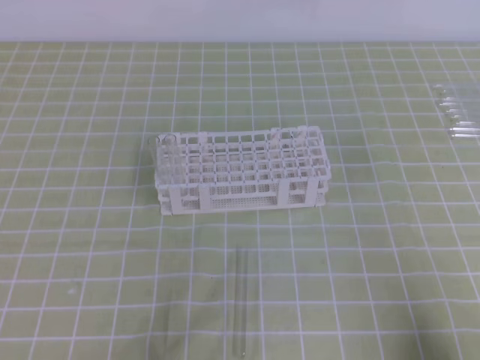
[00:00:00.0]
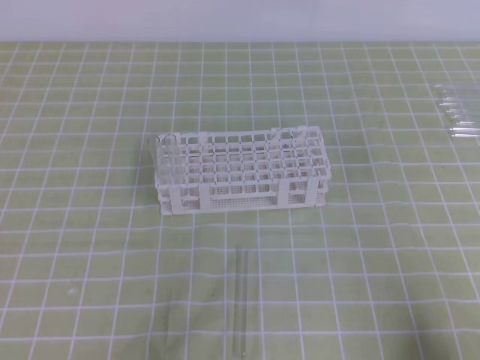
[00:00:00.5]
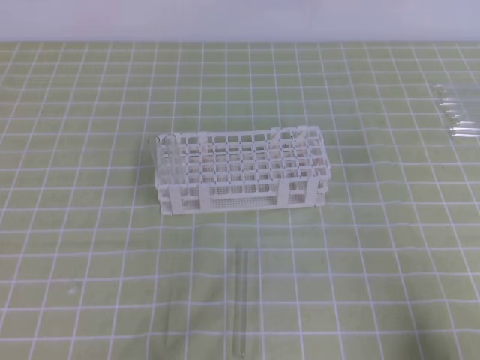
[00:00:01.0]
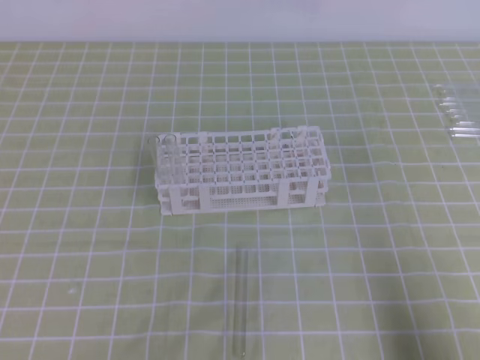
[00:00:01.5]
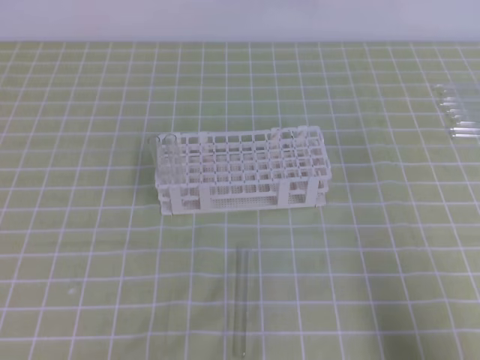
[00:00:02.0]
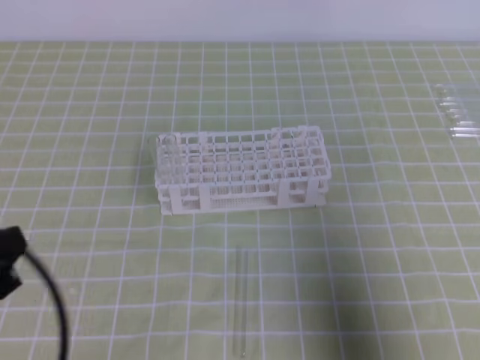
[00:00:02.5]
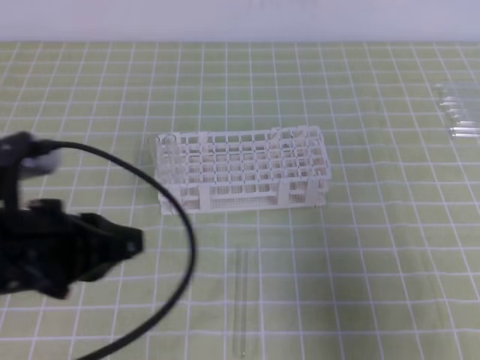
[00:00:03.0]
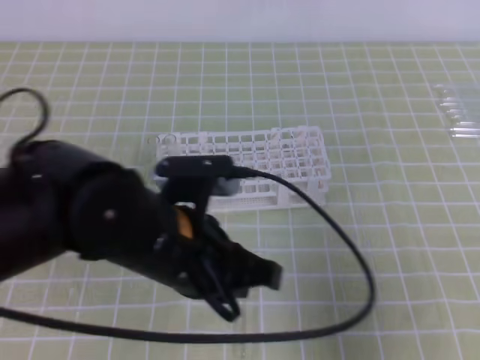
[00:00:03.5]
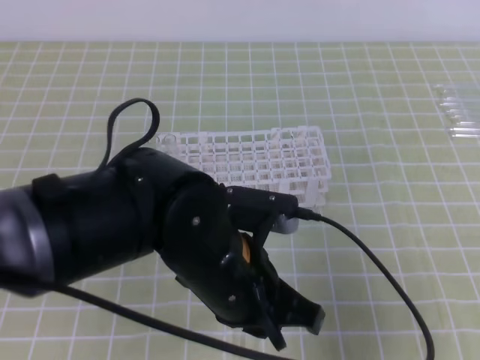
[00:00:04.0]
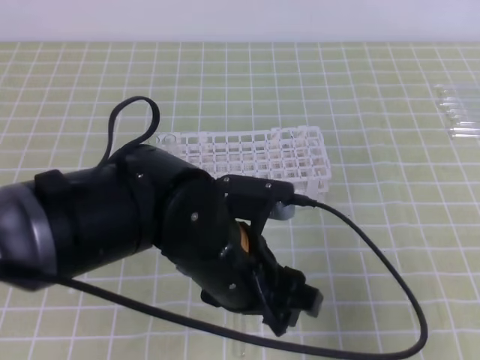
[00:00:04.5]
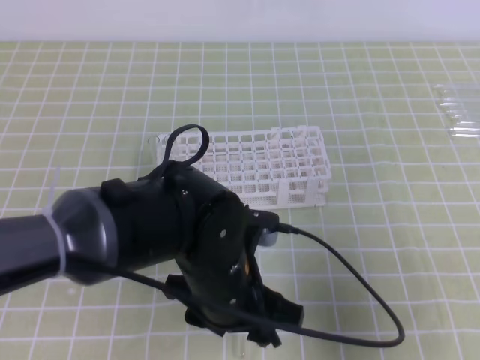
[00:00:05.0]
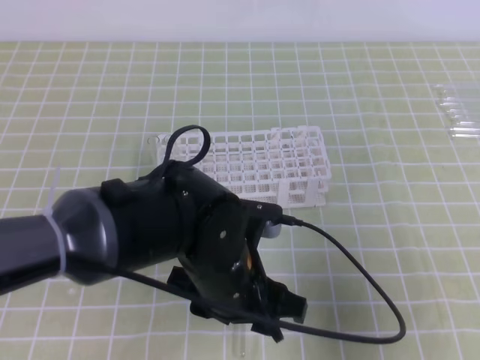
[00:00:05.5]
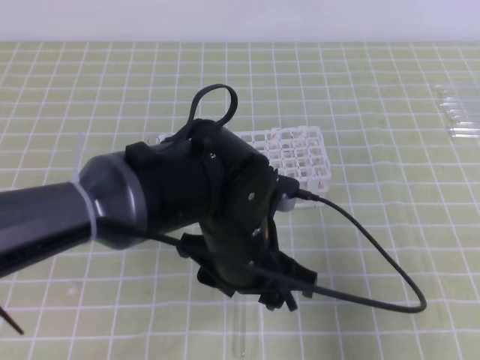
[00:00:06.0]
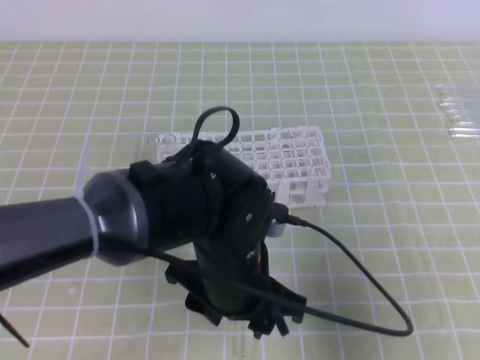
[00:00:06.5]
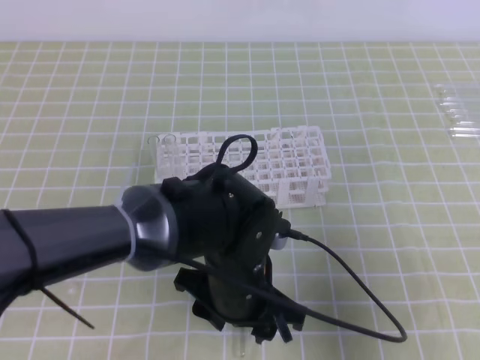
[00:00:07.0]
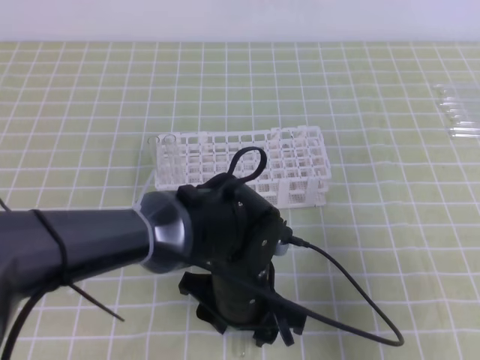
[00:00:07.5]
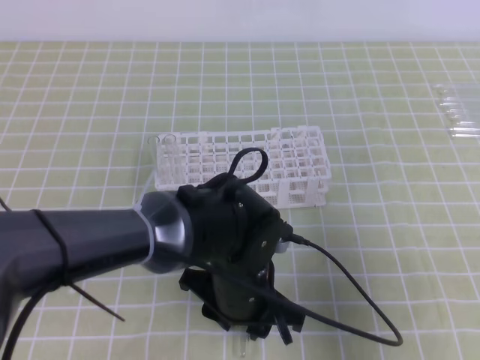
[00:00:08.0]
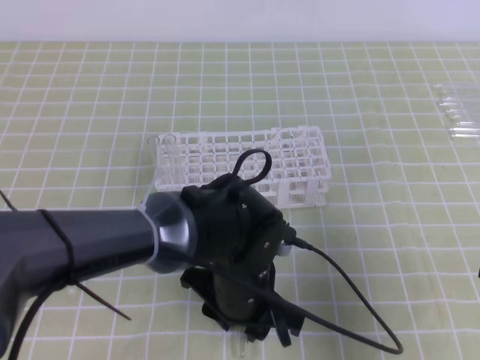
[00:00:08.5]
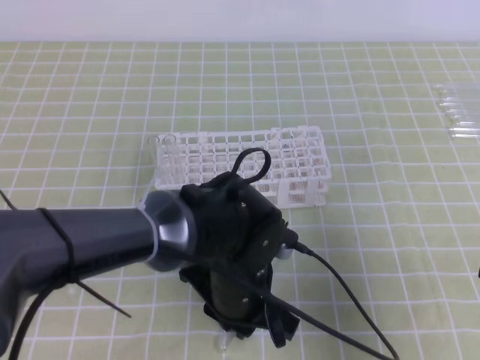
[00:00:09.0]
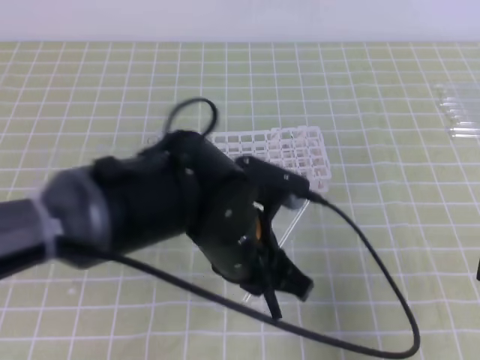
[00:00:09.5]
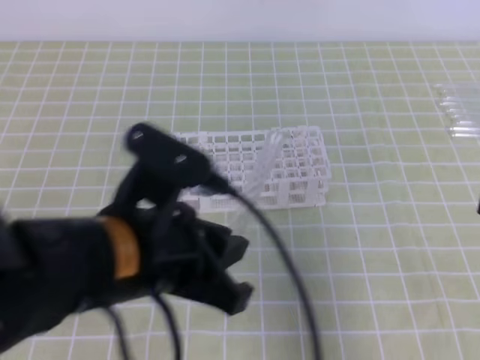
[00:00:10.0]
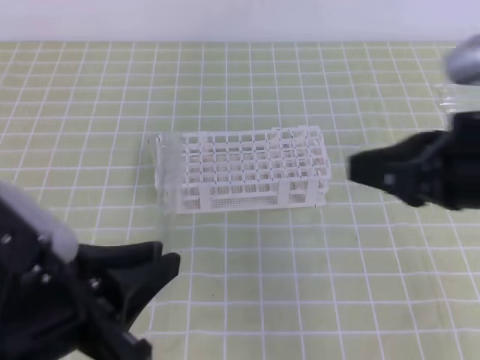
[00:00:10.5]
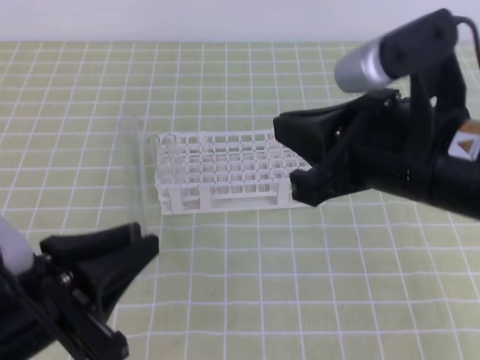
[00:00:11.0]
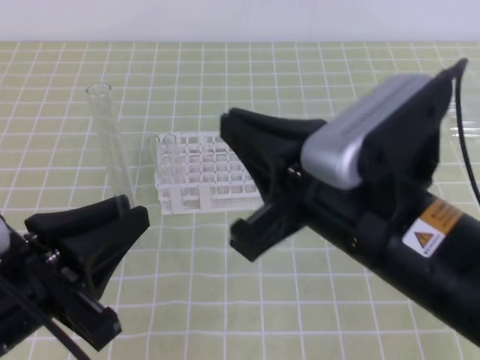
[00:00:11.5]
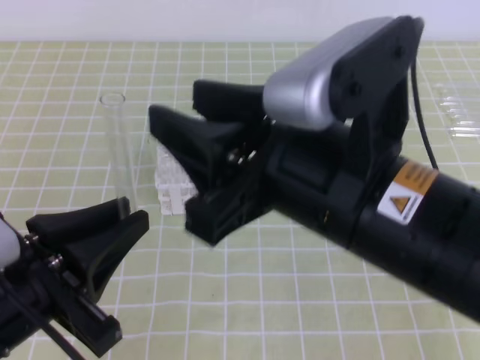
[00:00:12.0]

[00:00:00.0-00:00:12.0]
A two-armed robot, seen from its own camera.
00:00:02.0 to 00:00:04.0: The left gripper heads to the right and forward, covering about 25 cm. The right gripper goes approximately 5 cm forward.
00:00:04.0 to 00:00:06.0: The left gripper opens up.
00:00:06.0 to 00:00:08.0: The left gripper is displaced downward by approximately 5 cm.
00:00:08.0 to 00:00:10.0: The right gripper heads upward, covering roughly 5 cm. Meanwhile the left gripper heads upward, to the left and backward, covering about 20 cm, and closes.
00:00:10.0 to 00:00:12.0: The right gripper goes some 20 cm to the left, and opens. Meanwhile the left gripper travels to the left by some 10 cm.

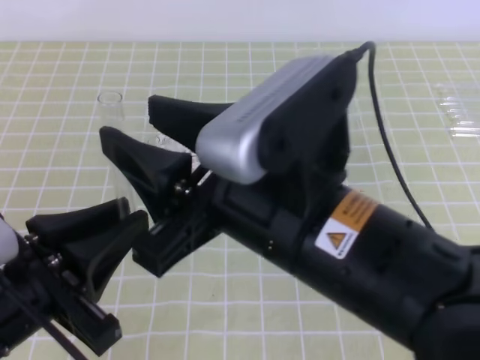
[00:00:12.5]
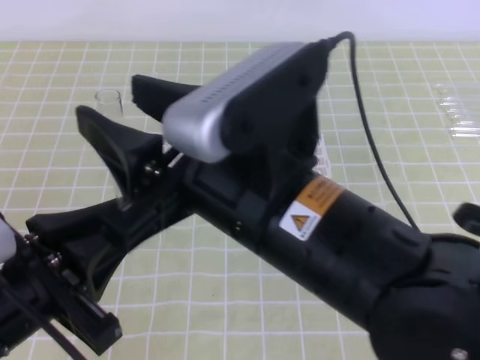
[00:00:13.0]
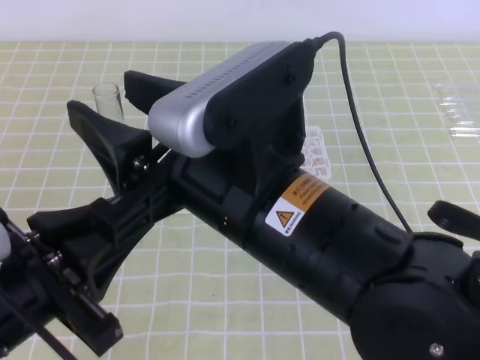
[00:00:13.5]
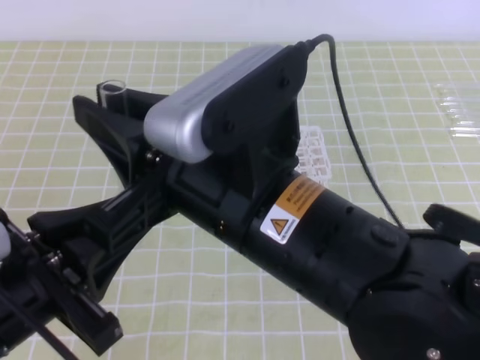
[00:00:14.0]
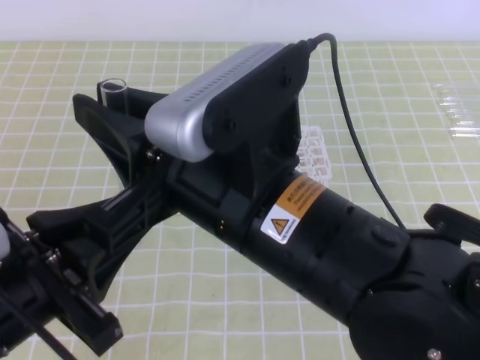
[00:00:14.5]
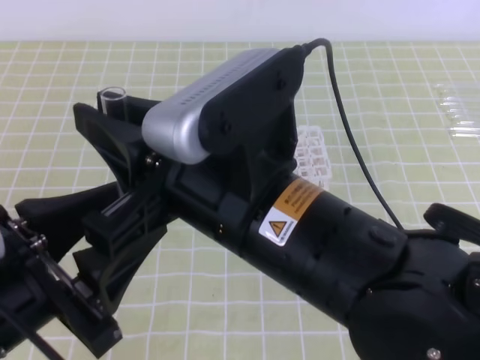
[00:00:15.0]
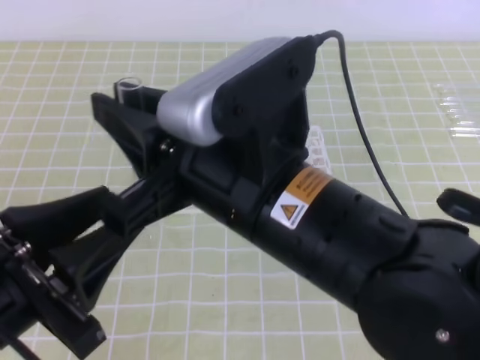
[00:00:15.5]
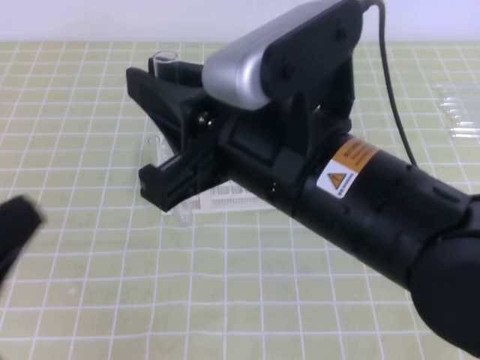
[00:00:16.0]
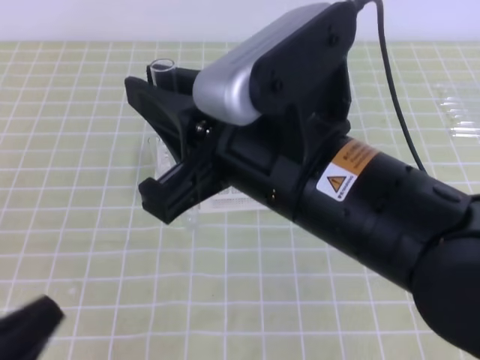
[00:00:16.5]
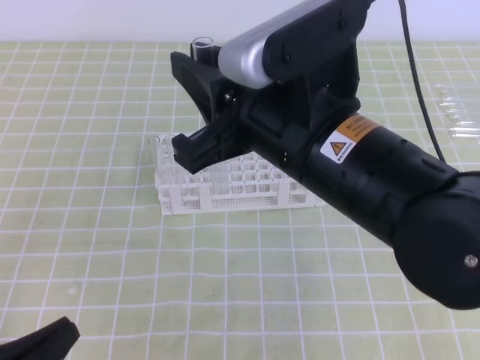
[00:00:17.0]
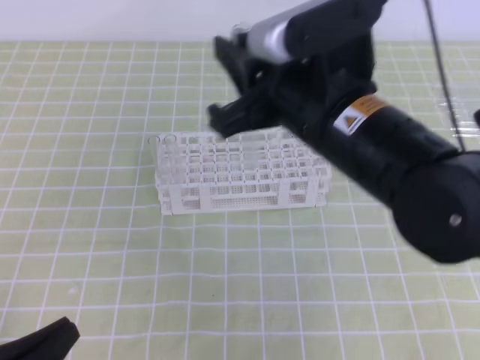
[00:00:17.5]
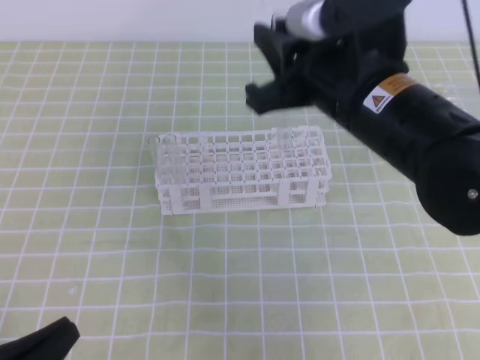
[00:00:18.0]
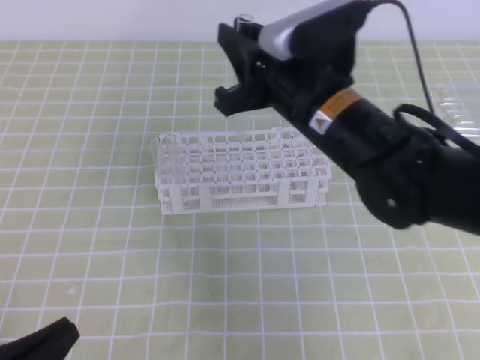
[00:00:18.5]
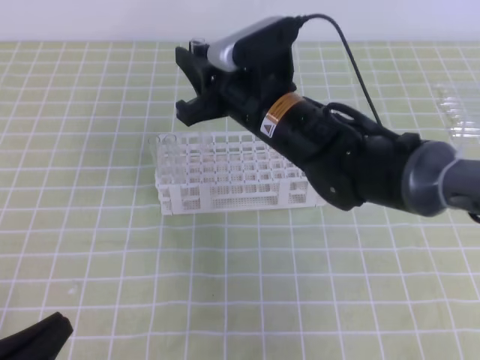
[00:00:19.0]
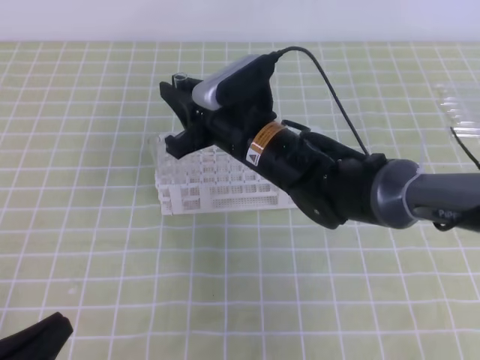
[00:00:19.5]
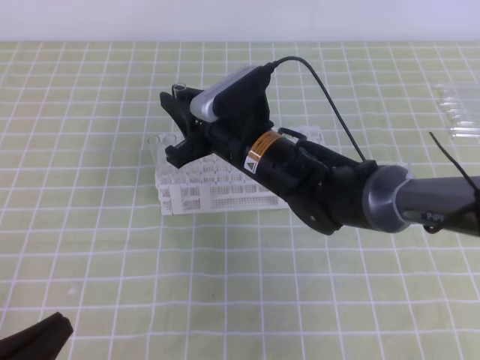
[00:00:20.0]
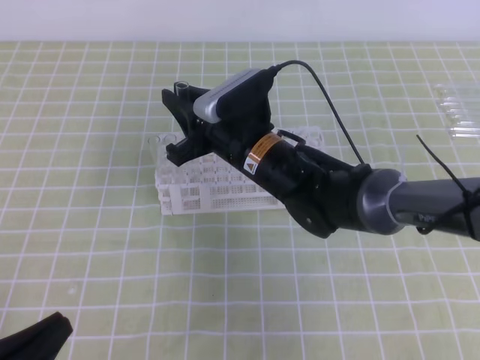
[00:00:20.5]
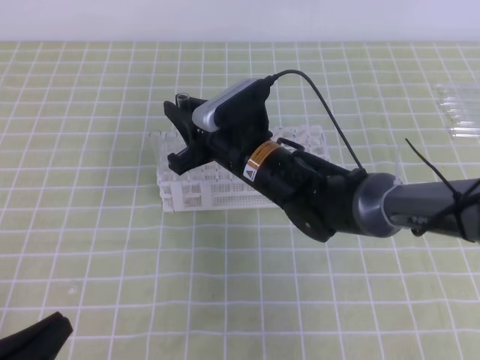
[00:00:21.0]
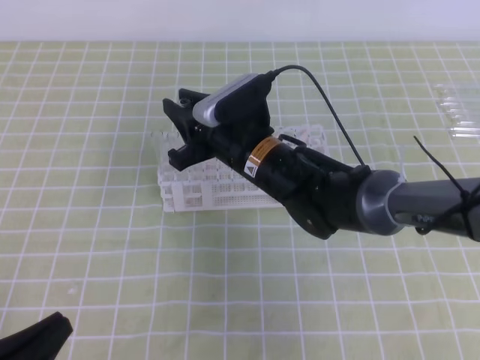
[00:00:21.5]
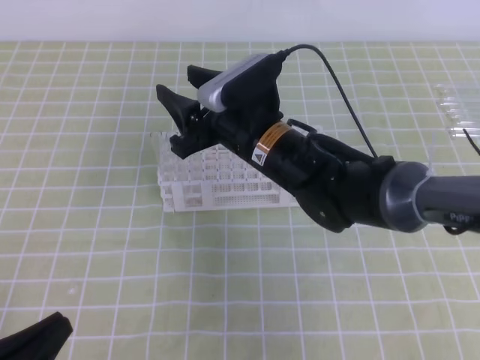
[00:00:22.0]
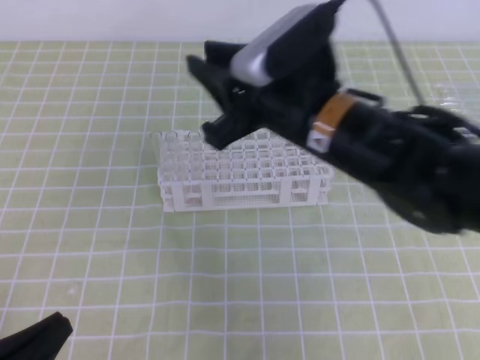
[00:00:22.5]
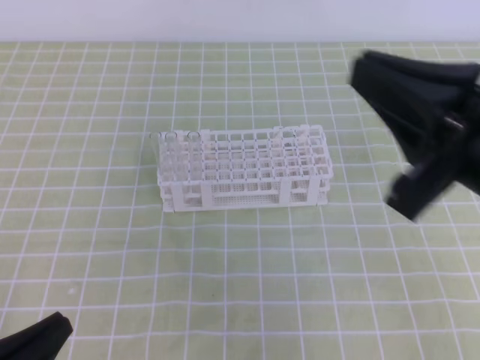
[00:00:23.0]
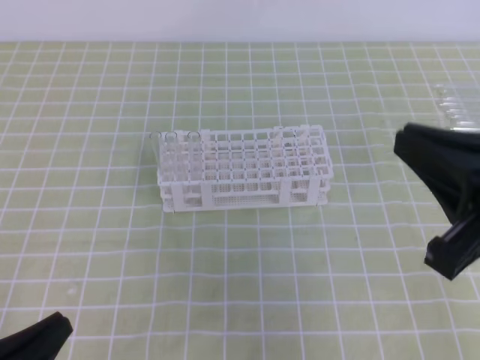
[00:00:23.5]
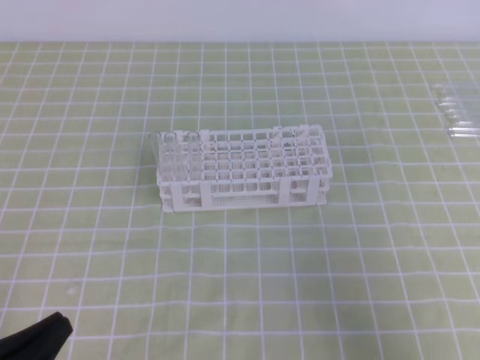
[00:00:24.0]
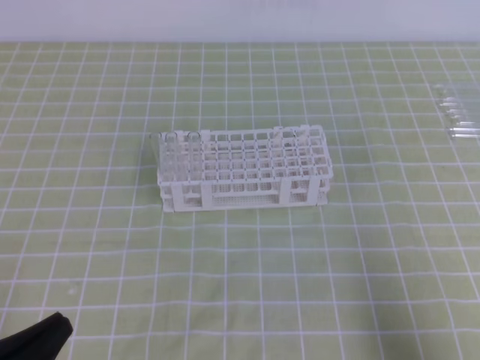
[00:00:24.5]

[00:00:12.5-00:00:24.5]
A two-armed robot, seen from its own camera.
00:00:12.5 to 00:00:14.5: The right gripper closes.
00:00:14.5 to 00:00:16.5: The left gripper moves to the left, backward and downward, some 10 cm, and closes up.
00:00:16.5 to 00:00:18.5: The right gripper goes roughly 15 cm forward and downward.
00:00:18.5 to 00:00:20.5: The right gripper travels downward and to the left by roughly 10 cm.
00:00:20.5 to 00:00:22.5: The right gripper shifts approximately 15 cm upward, backward and to the right, and opens, then closes once more.
00:00:22.5 to 00:00:24.5: The right gripper travels to the right and backward by roughly 35 cm, and closes up.

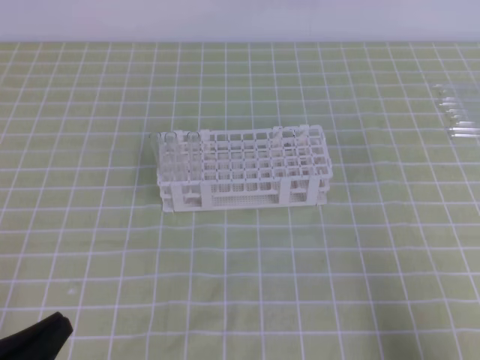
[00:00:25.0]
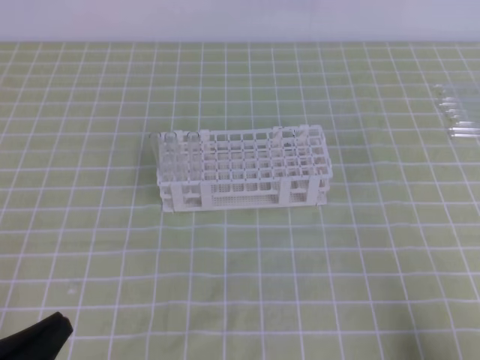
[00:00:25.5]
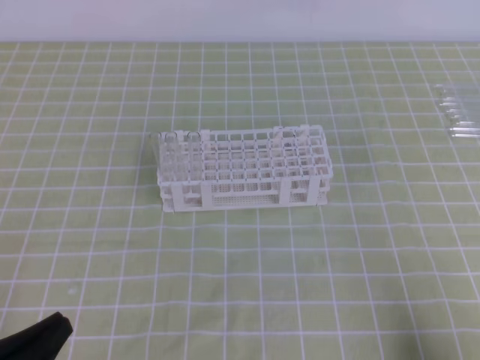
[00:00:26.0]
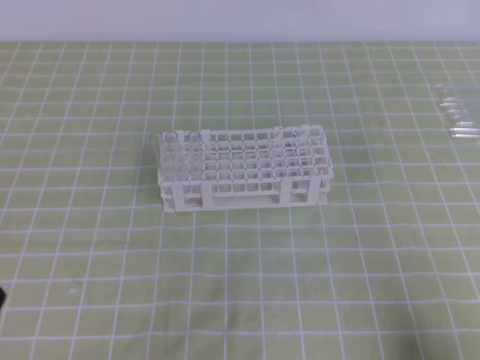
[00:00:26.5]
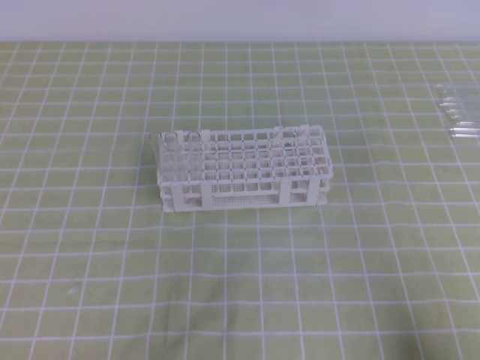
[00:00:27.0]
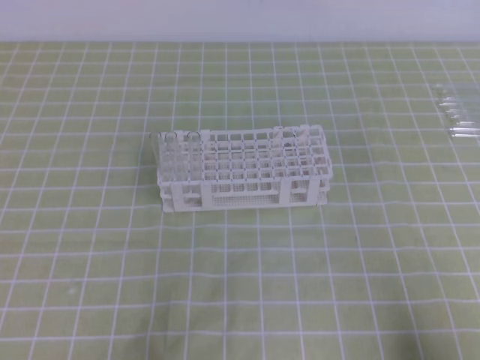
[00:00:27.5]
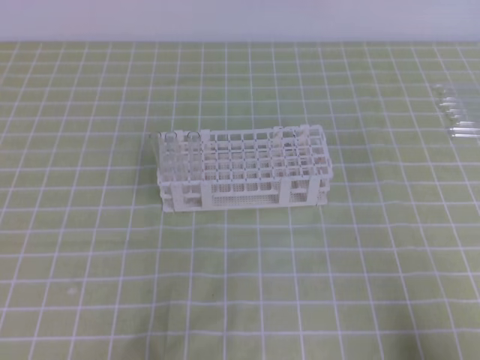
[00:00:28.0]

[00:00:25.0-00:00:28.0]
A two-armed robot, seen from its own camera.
00:00:25.0 to 00:00:26.5: There are only small adjustments of the grippers.
